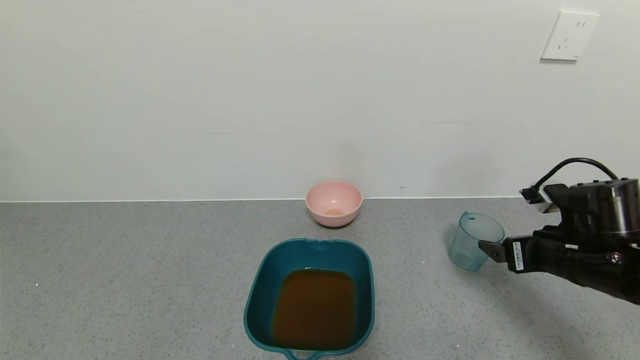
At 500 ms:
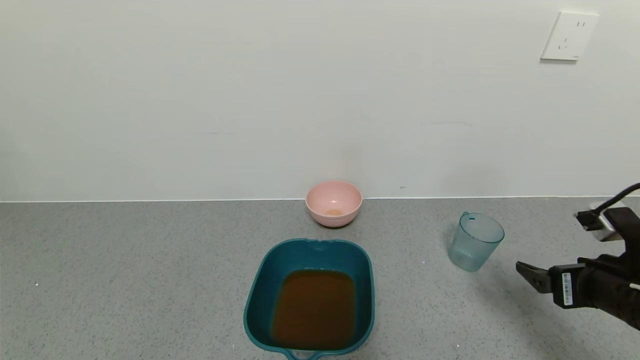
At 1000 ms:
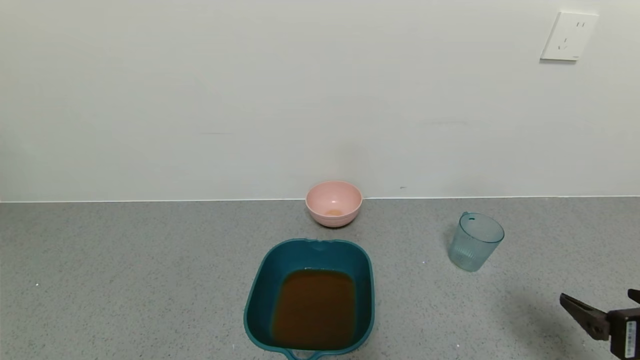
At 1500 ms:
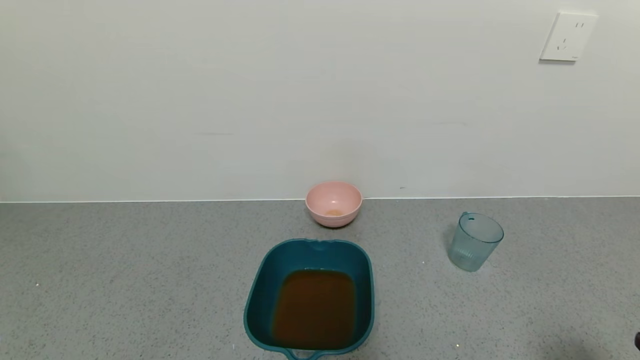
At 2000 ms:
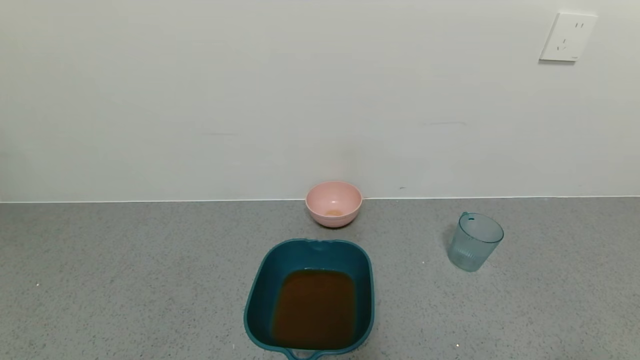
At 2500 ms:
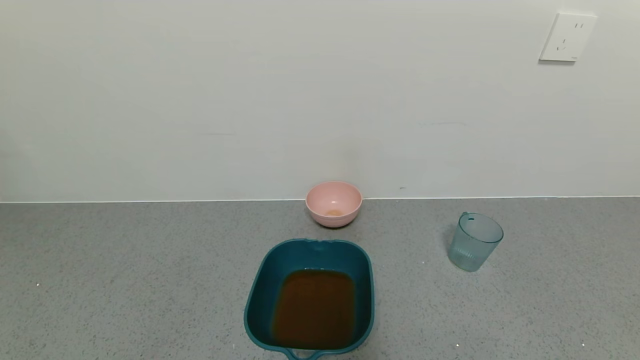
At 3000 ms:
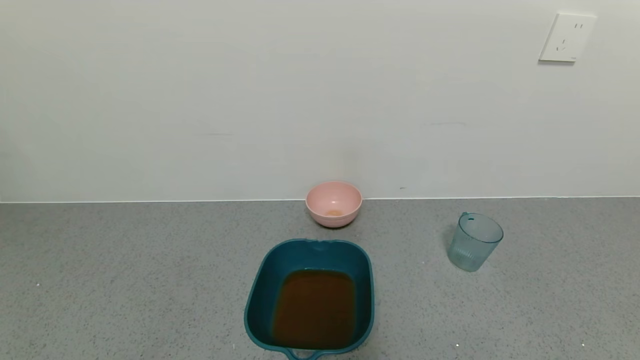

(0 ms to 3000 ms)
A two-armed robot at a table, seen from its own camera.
Task of the whole recording: use a gripper to pick up the cup and pour the liquid into a bowl or tray.
0 ms - 1500 ms: The right gripper shifts roughly 20 cm backward.
